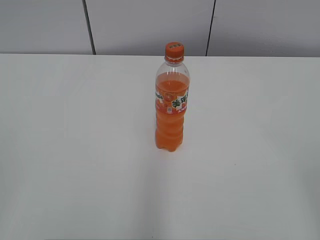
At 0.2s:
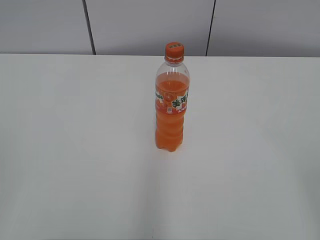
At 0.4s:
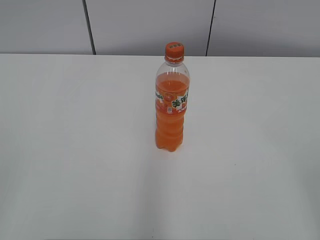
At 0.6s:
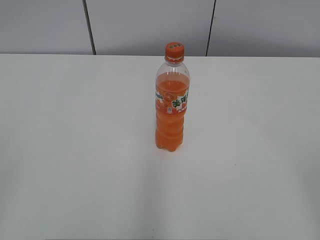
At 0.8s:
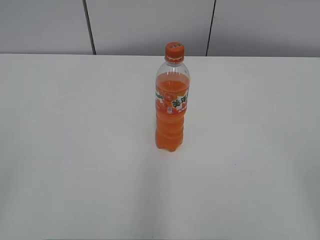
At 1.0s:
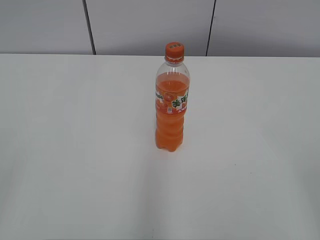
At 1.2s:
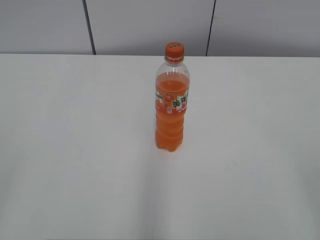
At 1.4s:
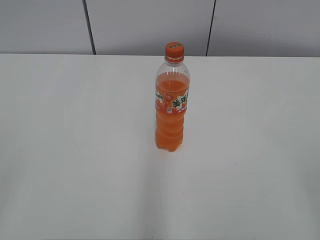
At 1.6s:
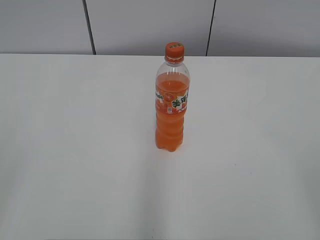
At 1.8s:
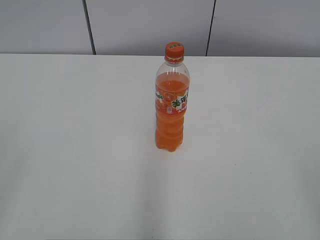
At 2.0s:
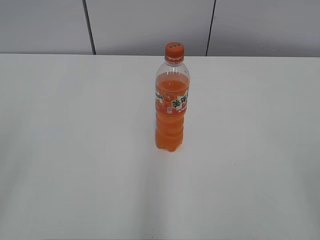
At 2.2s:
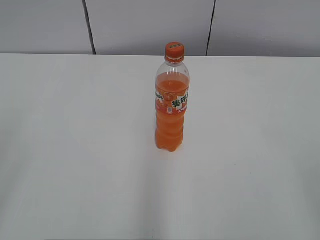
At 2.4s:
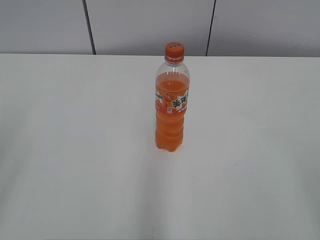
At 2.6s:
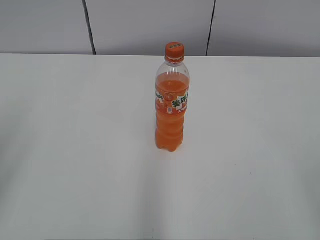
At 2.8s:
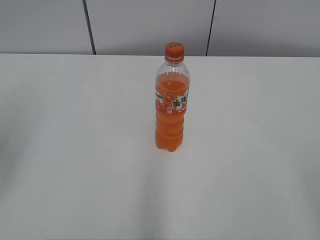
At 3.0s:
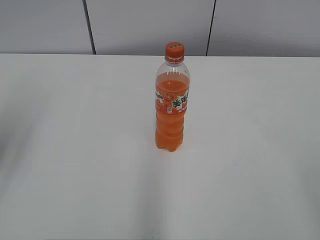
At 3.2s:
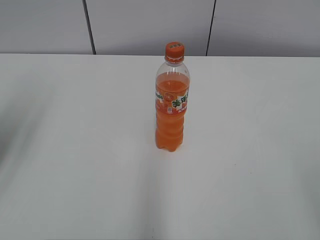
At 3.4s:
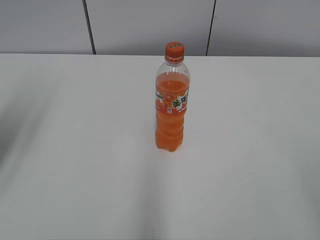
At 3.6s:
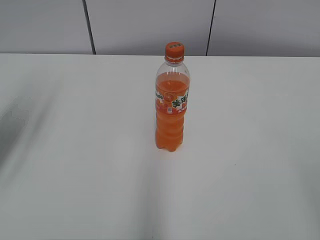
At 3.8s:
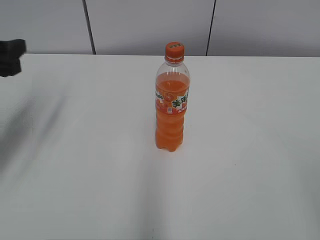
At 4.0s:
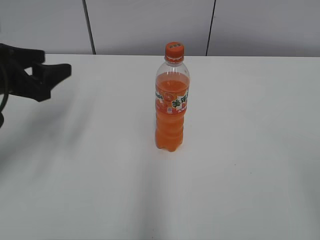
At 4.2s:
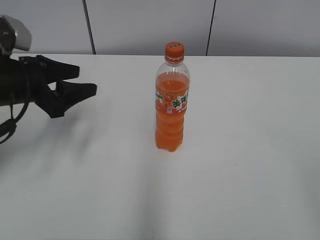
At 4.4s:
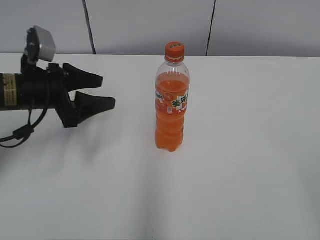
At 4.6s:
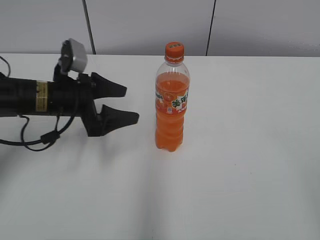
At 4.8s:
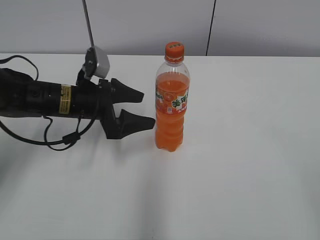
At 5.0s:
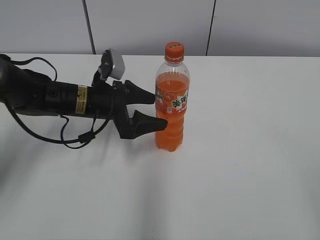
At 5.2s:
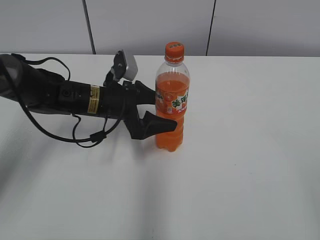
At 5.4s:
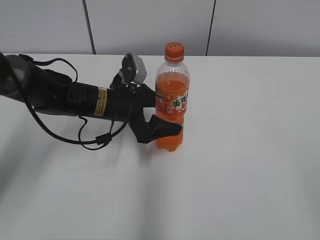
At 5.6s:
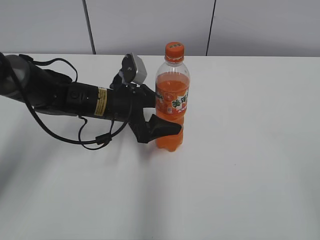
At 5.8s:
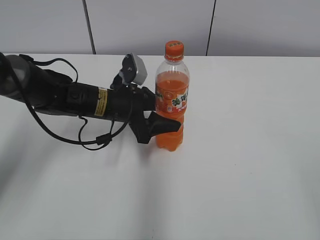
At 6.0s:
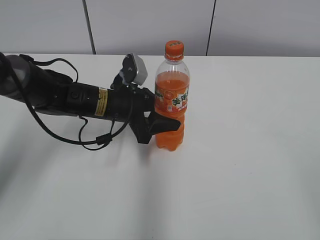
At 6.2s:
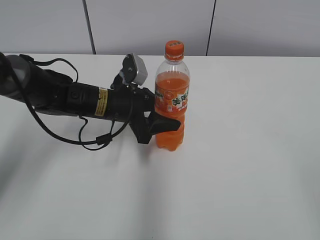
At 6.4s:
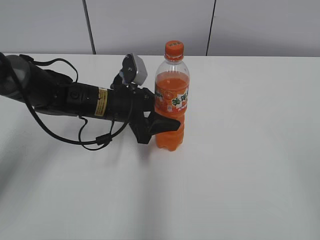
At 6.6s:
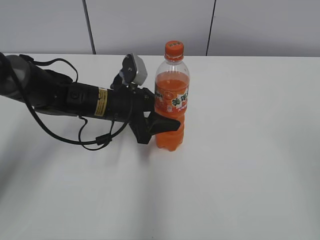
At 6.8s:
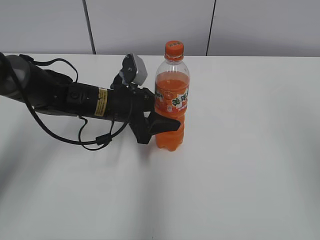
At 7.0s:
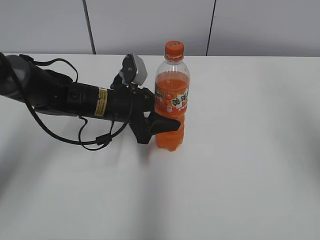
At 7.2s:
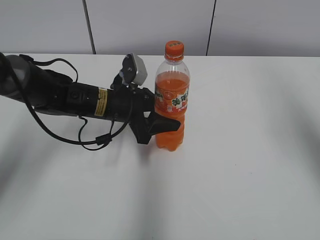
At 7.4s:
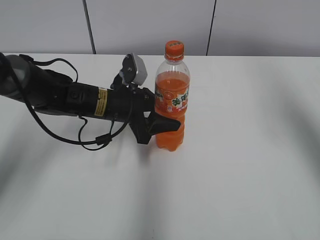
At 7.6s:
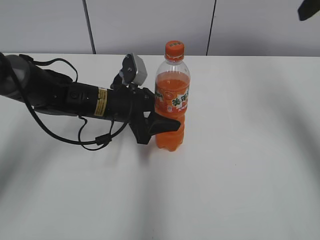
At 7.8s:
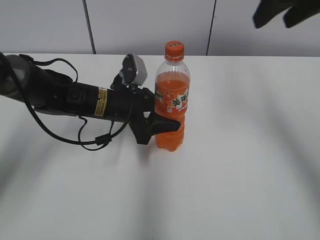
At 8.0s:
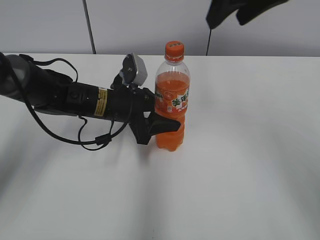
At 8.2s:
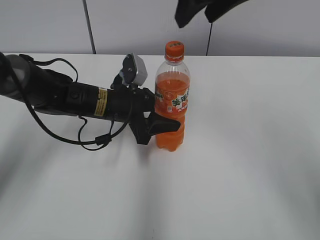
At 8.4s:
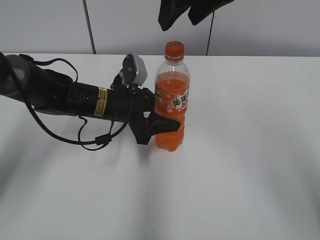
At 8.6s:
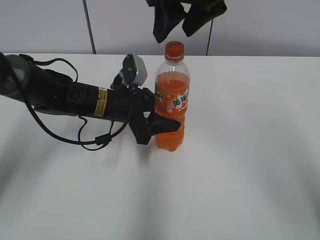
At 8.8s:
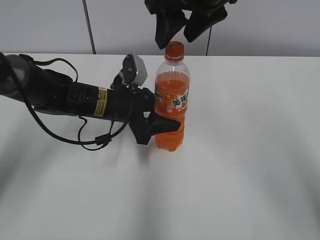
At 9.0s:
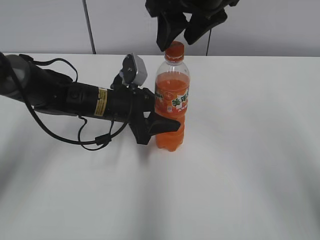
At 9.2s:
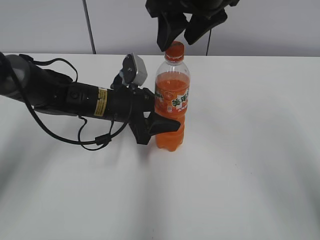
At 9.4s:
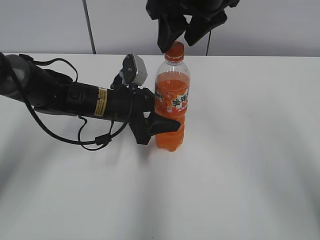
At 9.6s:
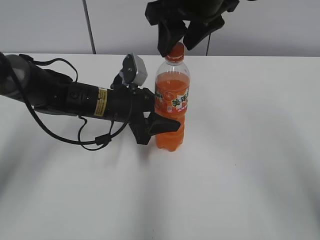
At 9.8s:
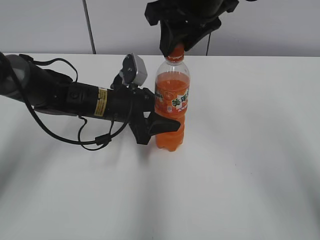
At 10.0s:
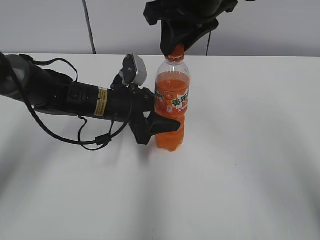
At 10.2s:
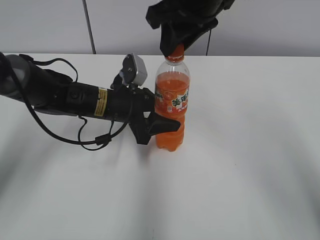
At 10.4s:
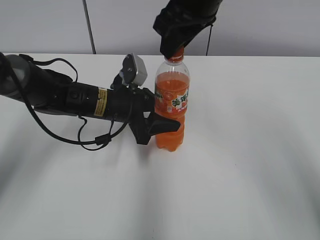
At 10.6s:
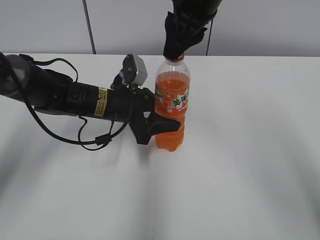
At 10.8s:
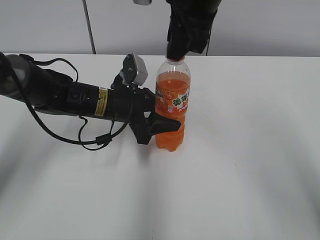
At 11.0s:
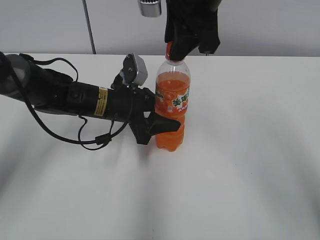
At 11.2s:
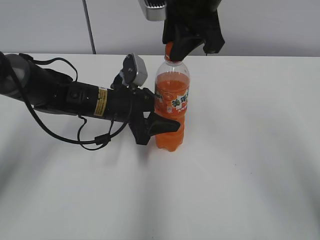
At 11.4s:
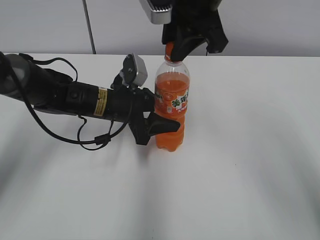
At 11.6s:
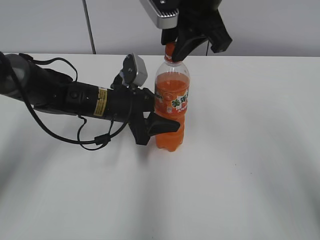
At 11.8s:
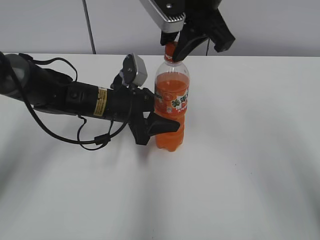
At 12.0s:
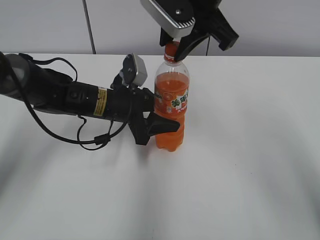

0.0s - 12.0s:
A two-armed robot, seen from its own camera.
Step, 0.0s - 6.2s: Grab the Mirinda with the left hand.
1.6s - 3.0s: The left gripper moves forward, about 15 cm.
3.0s - 4.4s: The left gripper is displaced forward, downward and to the right by approximately 25 cm.
4.4s - 6.0s: The left gripper goes approximately 15 cm to the right and downward, and closes.
6.0s - 7.6s: The right gripper moves forward, some 30 cm.
7.6s - 9.0s: The right gripper shifts roughly 20 cm to the left.
9.0s - 10.4s: The right gripper closes its fingers.

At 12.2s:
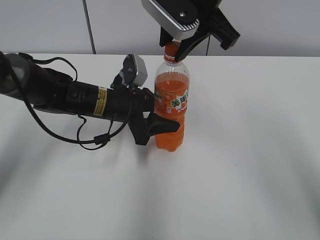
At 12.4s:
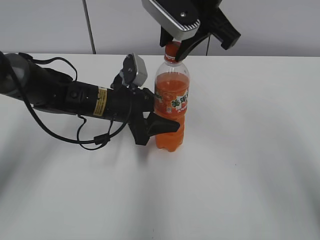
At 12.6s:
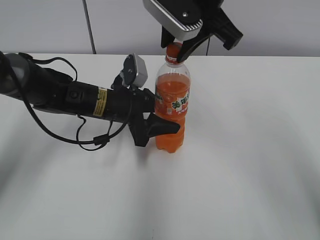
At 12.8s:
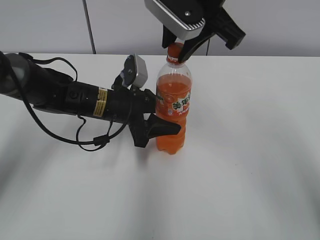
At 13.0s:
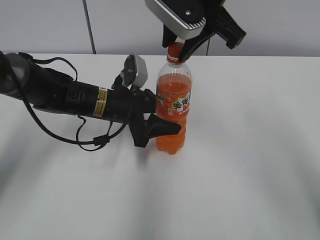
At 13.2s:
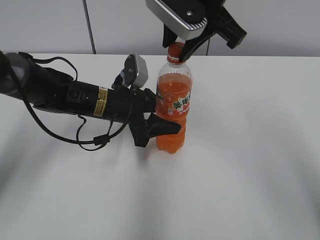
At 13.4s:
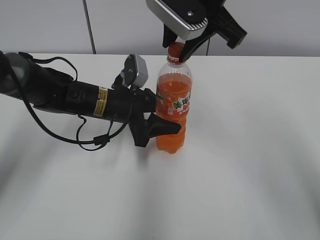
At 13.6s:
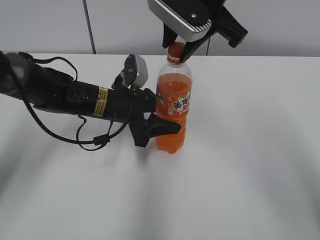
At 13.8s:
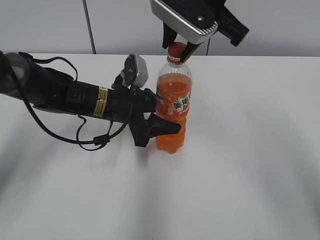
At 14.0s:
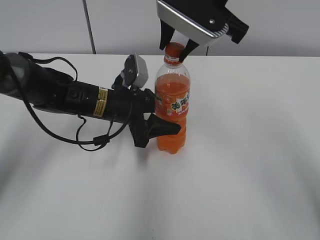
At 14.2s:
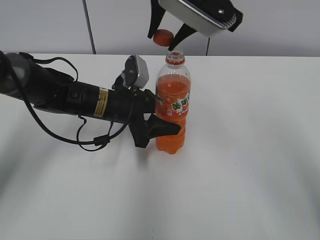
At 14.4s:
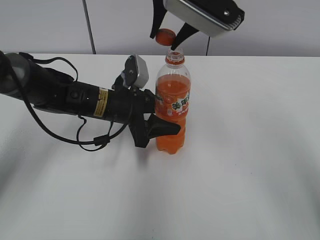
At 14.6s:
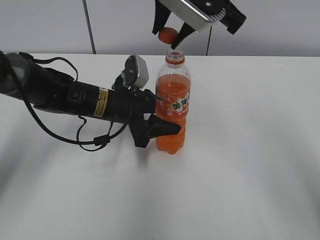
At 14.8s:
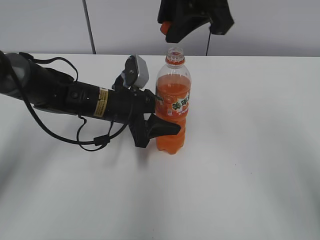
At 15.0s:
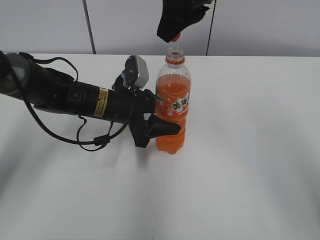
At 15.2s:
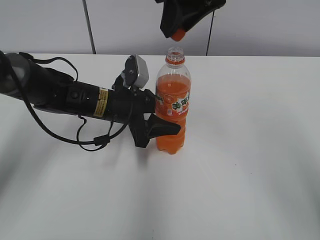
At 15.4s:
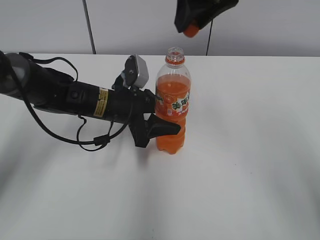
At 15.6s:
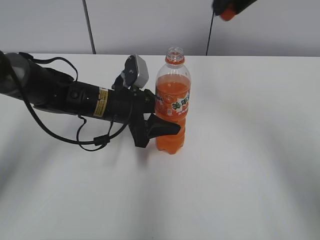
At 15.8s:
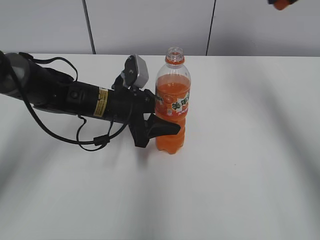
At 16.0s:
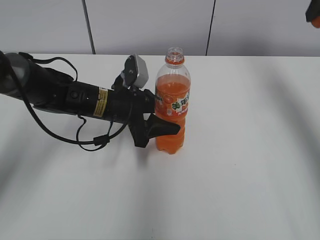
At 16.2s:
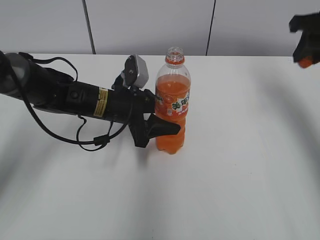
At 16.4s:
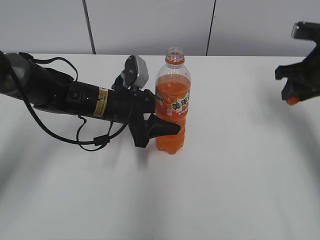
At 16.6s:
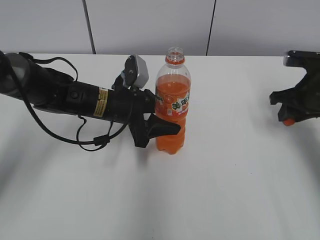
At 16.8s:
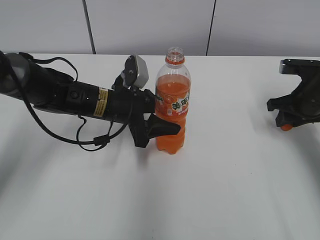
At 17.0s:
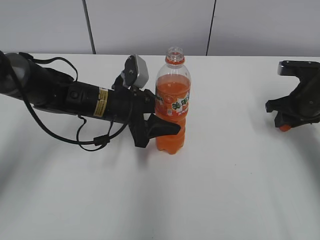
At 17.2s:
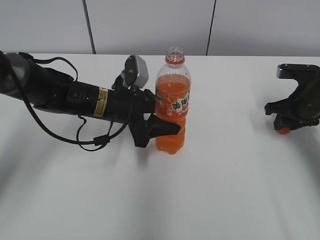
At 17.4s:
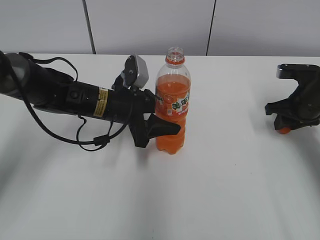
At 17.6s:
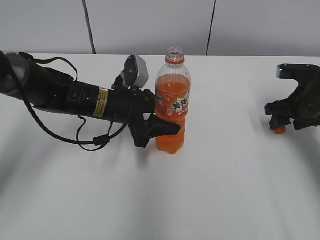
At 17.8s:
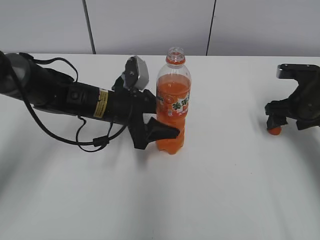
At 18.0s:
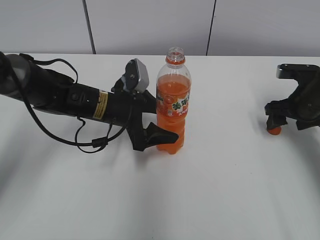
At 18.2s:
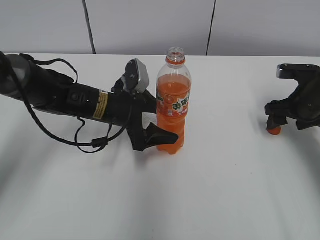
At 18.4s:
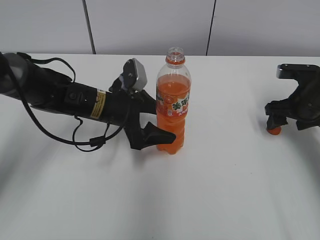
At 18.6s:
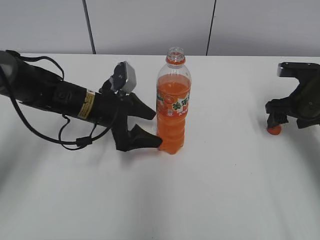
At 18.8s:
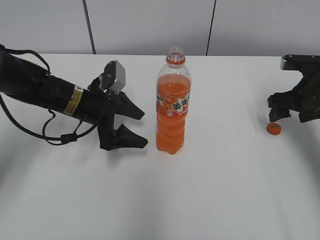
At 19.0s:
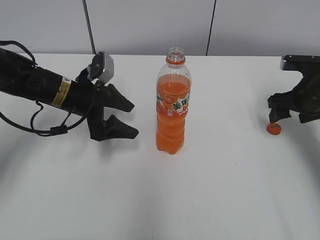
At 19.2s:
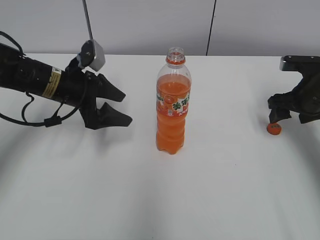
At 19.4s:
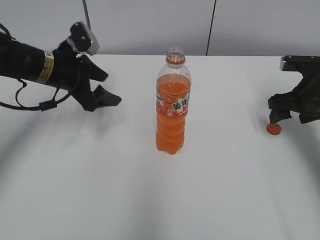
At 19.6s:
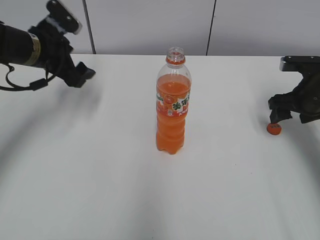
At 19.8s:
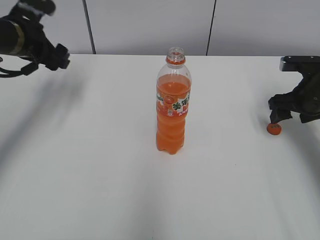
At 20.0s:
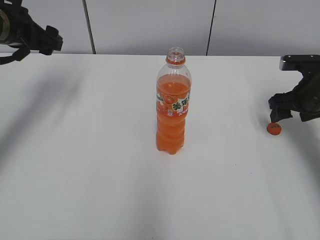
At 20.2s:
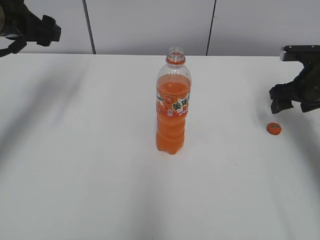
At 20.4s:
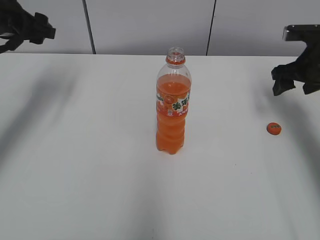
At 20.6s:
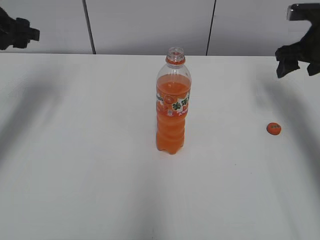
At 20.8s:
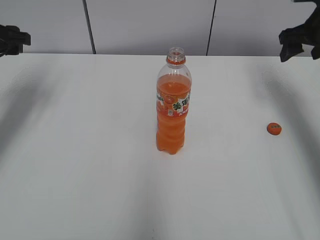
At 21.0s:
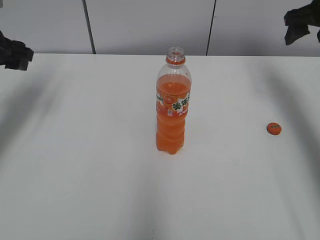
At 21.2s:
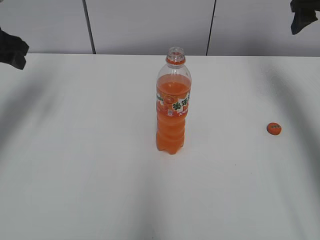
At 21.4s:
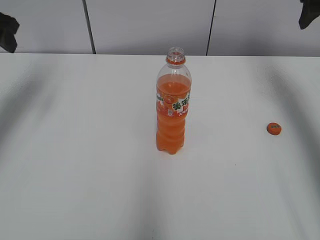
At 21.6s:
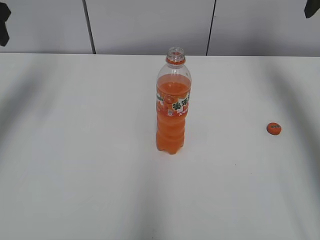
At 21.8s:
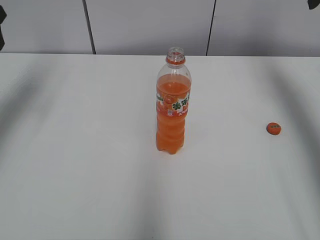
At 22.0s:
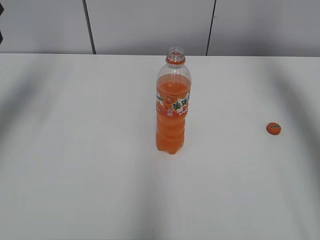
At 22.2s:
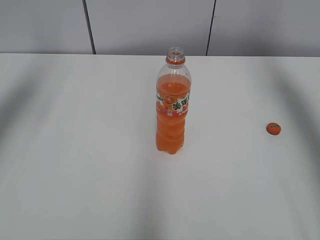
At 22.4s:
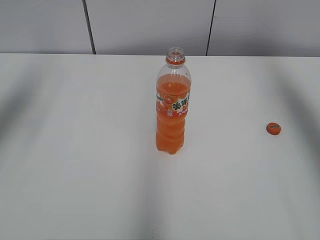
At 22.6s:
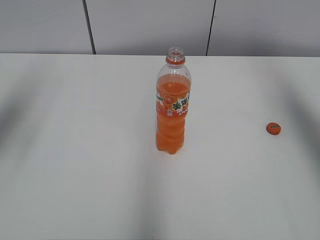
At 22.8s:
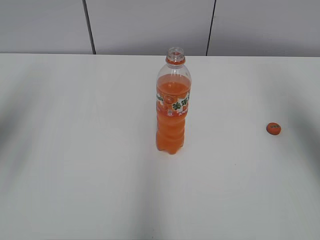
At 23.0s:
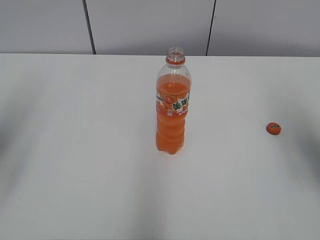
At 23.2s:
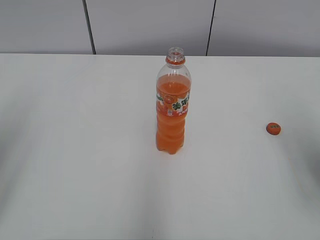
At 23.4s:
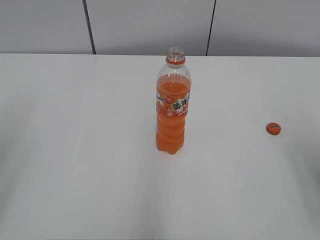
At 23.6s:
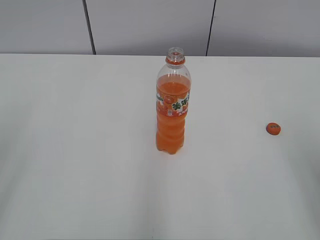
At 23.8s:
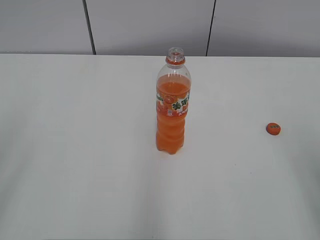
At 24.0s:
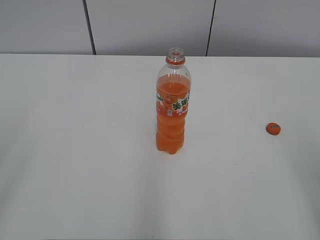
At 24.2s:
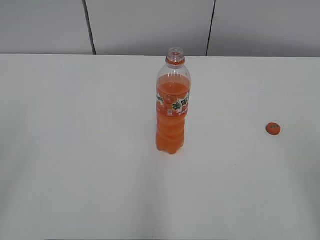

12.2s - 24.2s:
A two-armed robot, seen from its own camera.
Step, 14.2s - 17.4s: Place the bottle cap on the right.
Step, 17.6s - 17.8s: Place the Mirinda with the left hand.
12.2s - 13.8s: The grippers stay close to where they were, moving slightly.
15.2s - 16.6s: The right gripper travels to the right and downward by approximately 30 cm.
16.6s - 18.2s: The left gripper opens. The right gripper opens up.
18.2s - 19.8s: The left gripper moves to the left and upward, roughly 20 cm.
19.8s - 21.2s: The left gripper is displaced to the left by some 5 cm, while the right gripper goes approximately 20 cm upward and forward.
21.2s - 22.6s: The right gripper moves backward and upward, approximately 15 cm; the left gripper heads upward and backward, covering roughly 15 cm.
22.6s - 24.2s: The right gripper travels backward and downward by about 30 cm, while the left gripper moves backward, roughly 25 cm.
